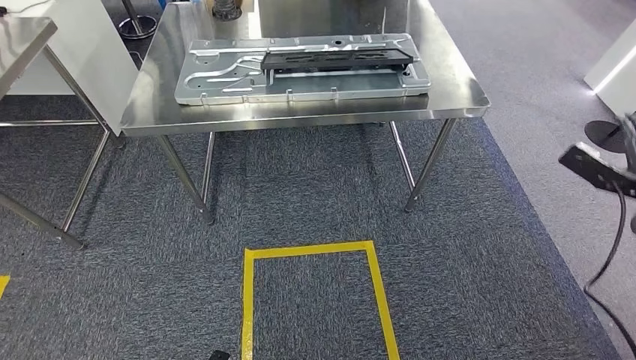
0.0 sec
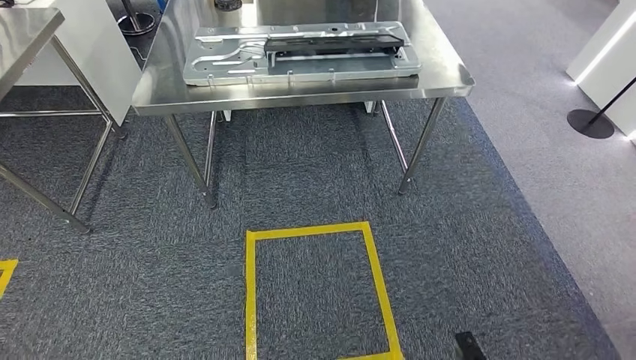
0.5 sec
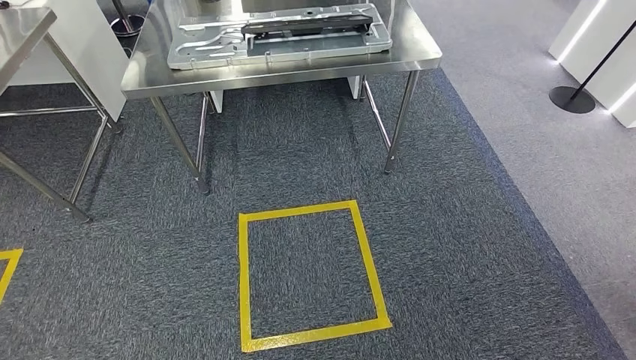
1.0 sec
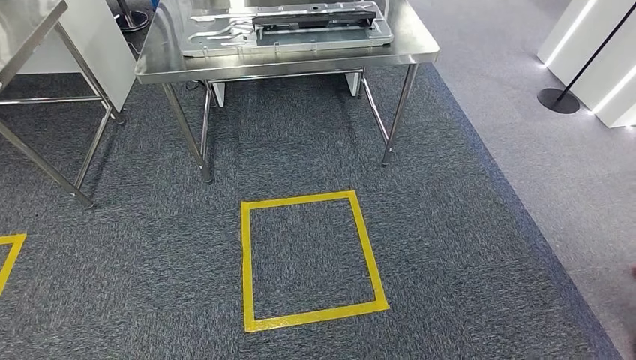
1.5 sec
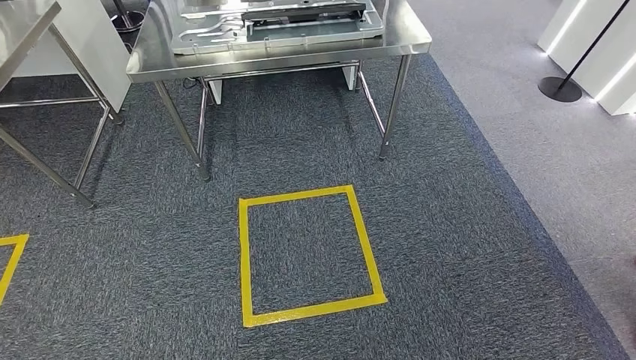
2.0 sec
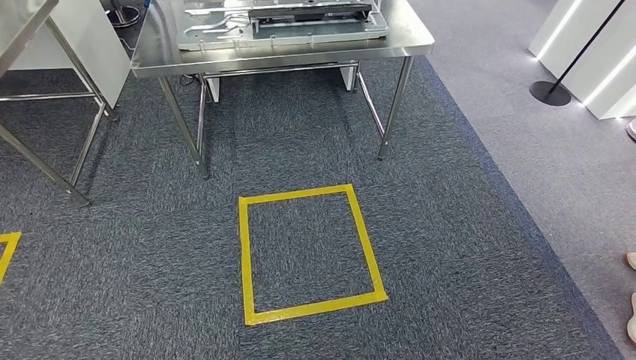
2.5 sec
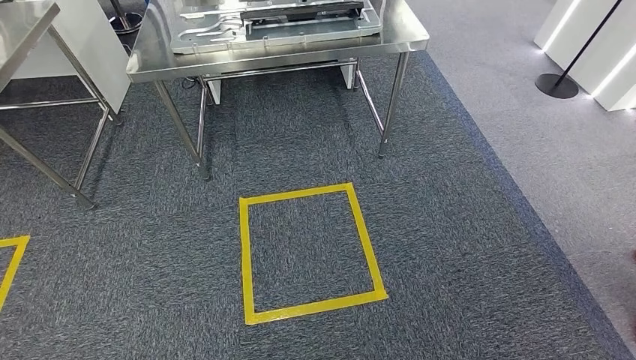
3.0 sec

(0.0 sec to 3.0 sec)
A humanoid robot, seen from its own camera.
Step, 0.0 sec - 3.0 sec: Move to the initial position of the shelf.
1.5 sec - 3.0 sec: The hands stay close to where they were, moving slightly.
